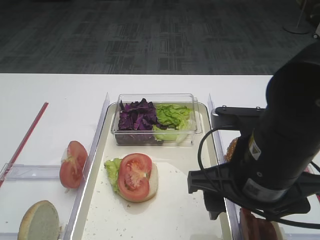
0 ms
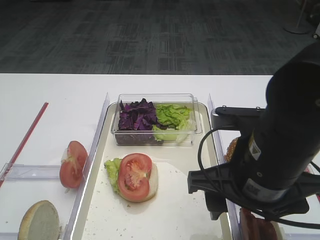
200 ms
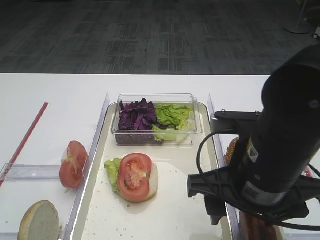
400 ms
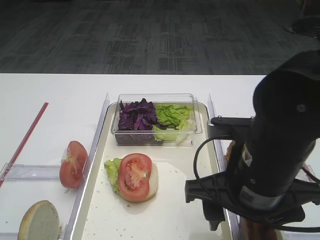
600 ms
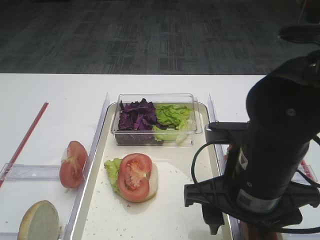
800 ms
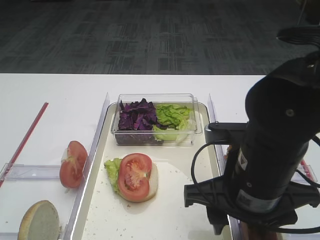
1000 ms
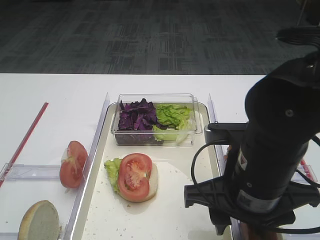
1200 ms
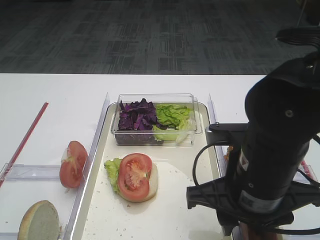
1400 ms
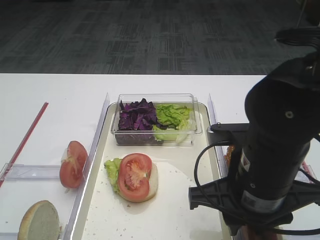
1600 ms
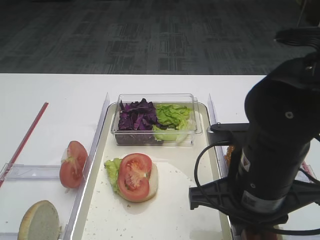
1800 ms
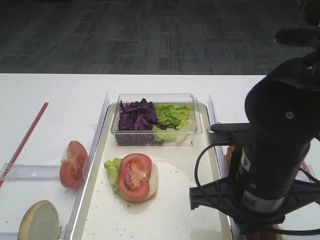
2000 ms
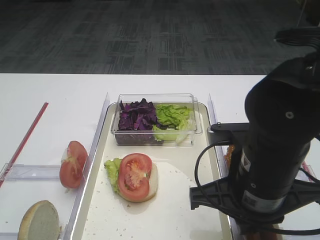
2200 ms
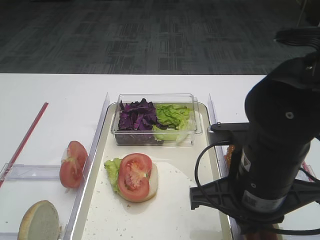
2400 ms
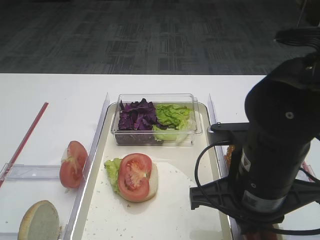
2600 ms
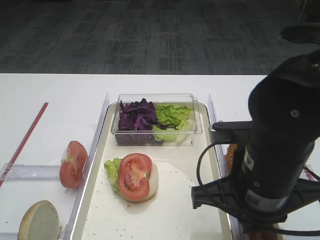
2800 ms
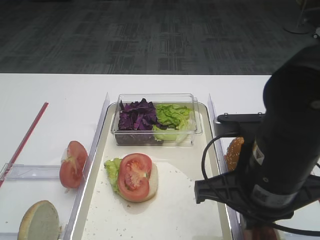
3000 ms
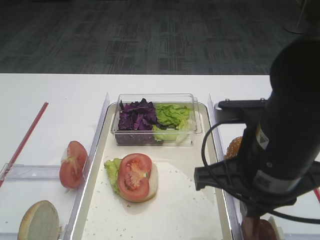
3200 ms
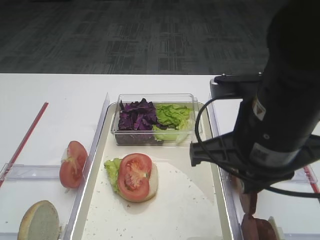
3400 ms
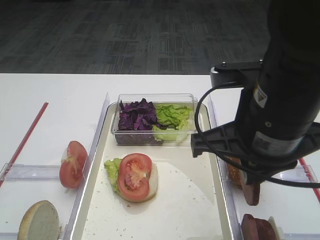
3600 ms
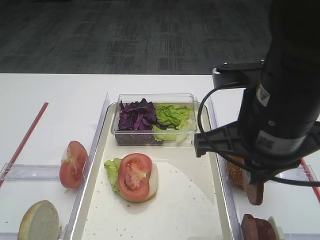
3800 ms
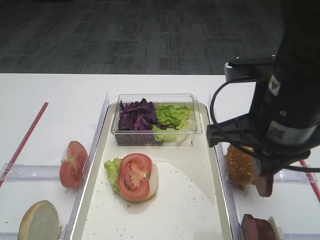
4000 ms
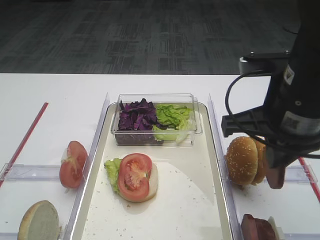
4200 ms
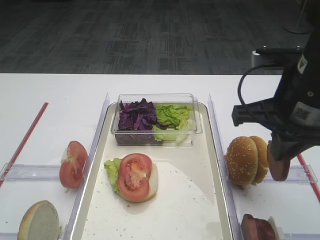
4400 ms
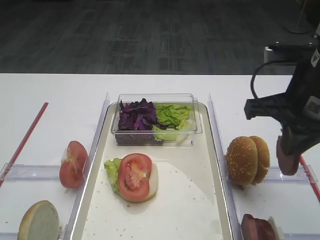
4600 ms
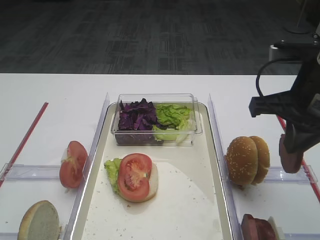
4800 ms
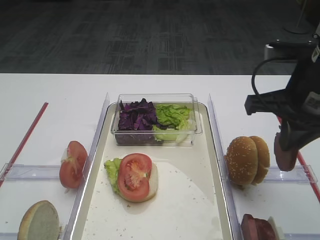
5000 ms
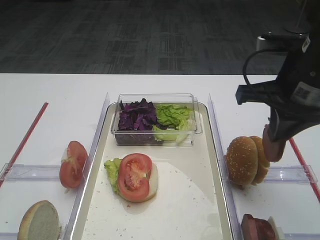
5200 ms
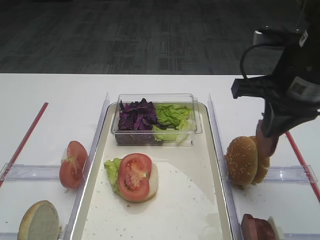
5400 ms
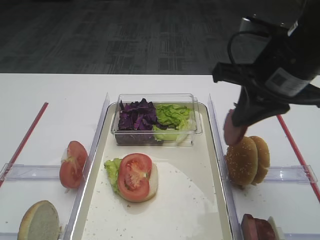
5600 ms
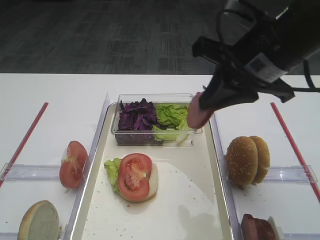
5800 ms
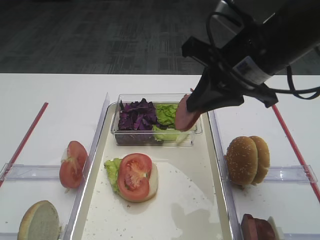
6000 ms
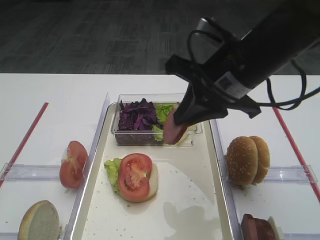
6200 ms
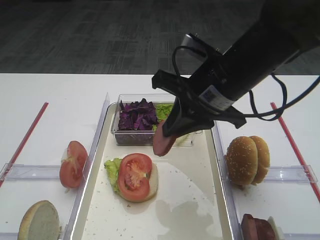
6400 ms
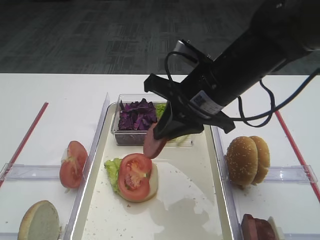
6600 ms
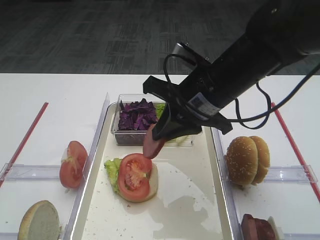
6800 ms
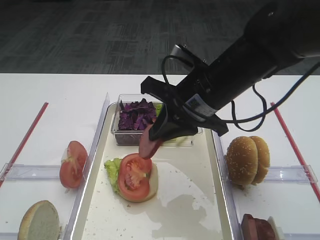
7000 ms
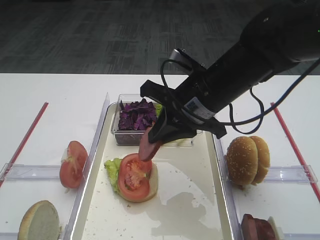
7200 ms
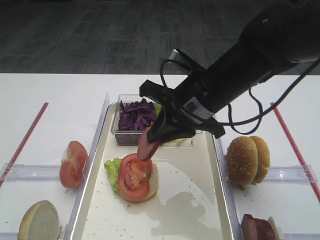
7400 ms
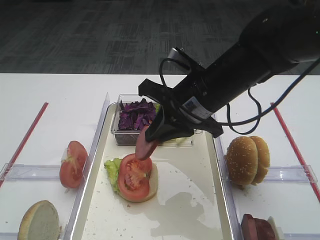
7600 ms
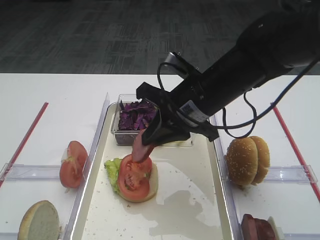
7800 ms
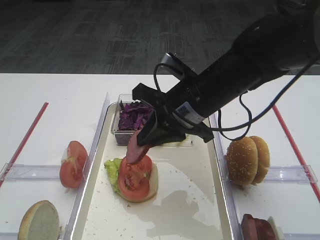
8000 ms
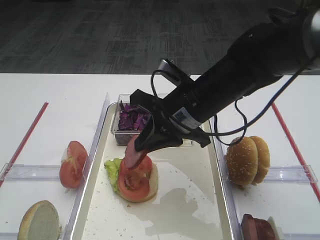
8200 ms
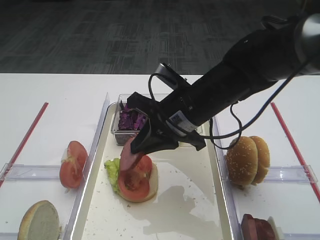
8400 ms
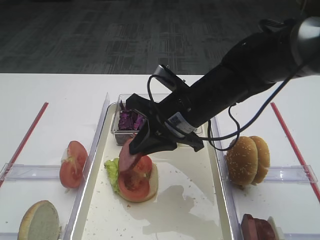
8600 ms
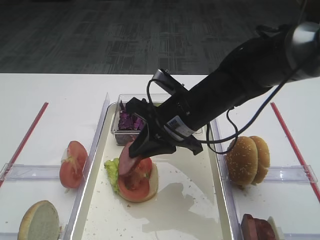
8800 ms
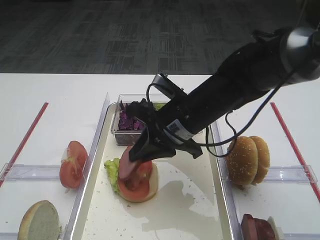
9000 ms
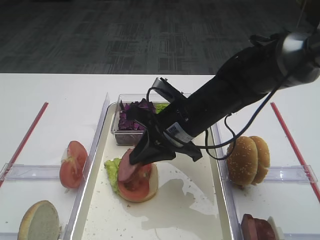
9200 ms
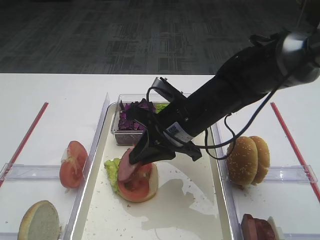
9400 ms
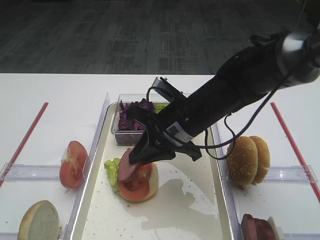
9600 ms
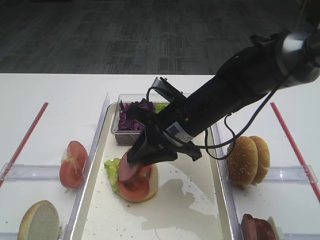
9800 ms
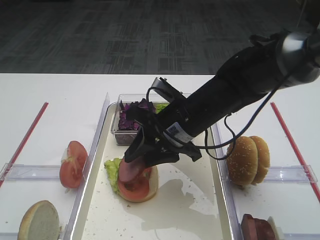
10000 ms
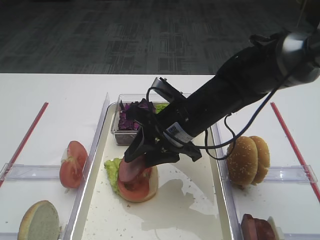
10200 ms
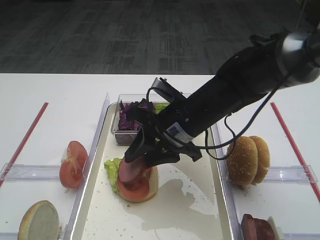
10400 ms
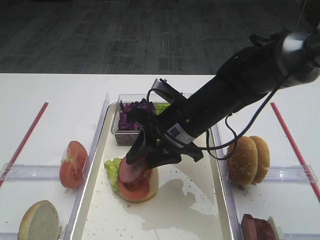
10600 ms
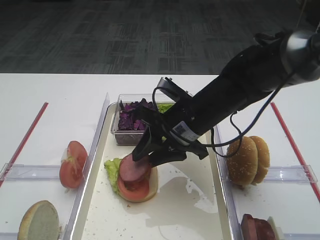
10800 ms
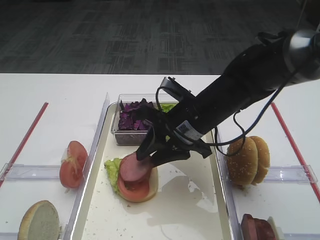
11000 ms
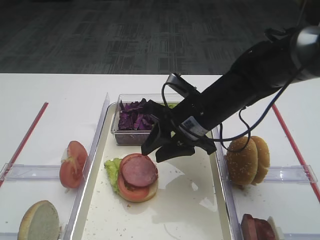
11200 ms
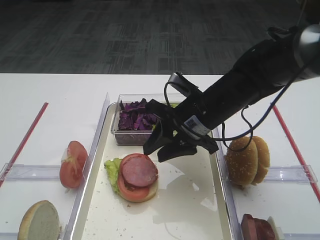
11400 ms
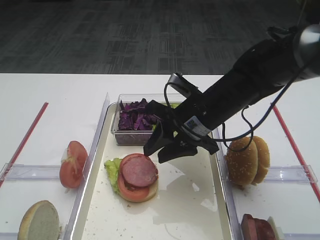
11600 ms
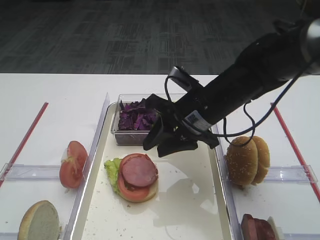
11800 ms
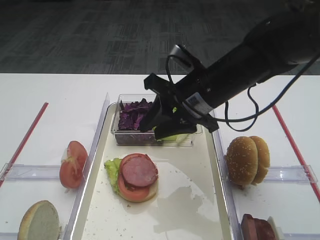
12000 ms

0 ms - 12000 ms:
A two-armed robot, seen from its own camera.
Step, 0 ms - 3200 ms: Pick up the cutlet with the right gripper.
Step, 3400 ms - 11400 ms: Place the cutlet on the tomato slice with the right gripper.
0 ms - 1600 ms: The right gripper closes.
1600 ms - 3000 ms: The right gripper closes.
3000 ms - 4400 ms: The right gripper shifts roughly 10 cm upward, forward and to the right.
4400 ms - 6000 ms: The right gripper is displaced forward by approximately 5 cm.
6000 ms - 7600 ms: The right gripper goes about 10 cm downward and to the left.
7600 ms - 9000 ms: The right gripper moves about 5 cm.
9000 ms - 10400 ms: The right gripper opens.
10400 ms - 12000 ms: The right gripper shifts by some 5 cm.

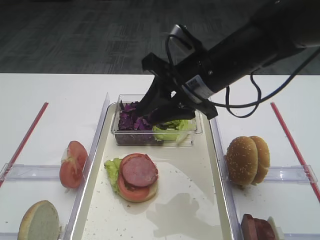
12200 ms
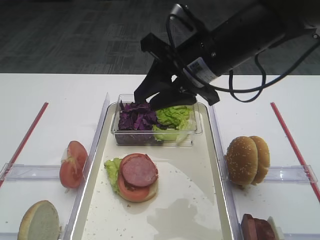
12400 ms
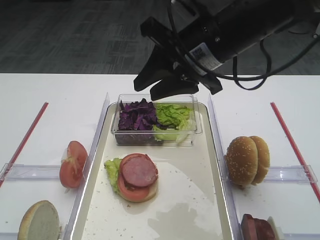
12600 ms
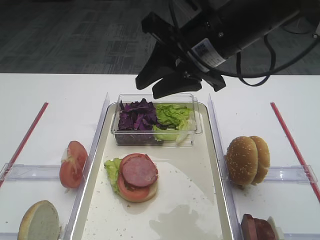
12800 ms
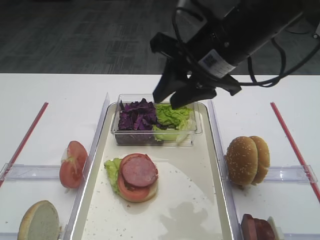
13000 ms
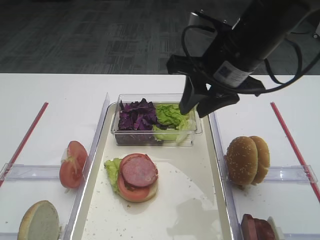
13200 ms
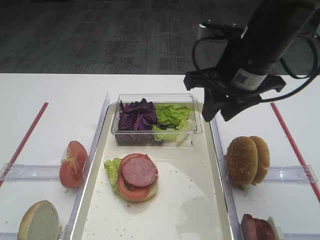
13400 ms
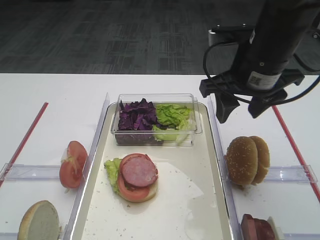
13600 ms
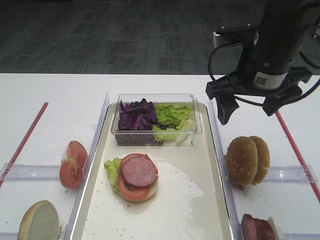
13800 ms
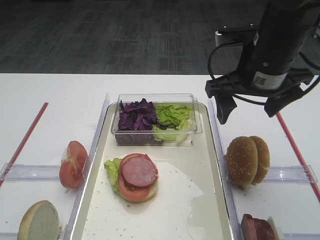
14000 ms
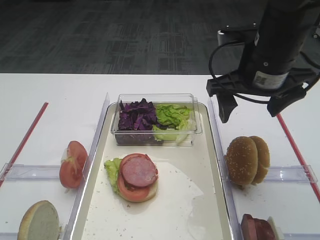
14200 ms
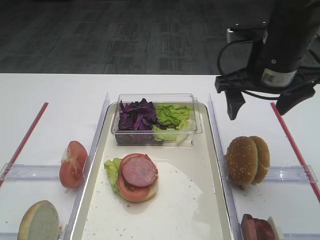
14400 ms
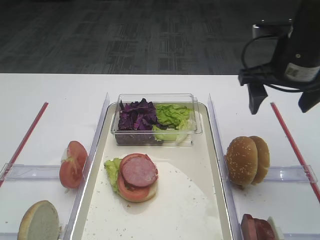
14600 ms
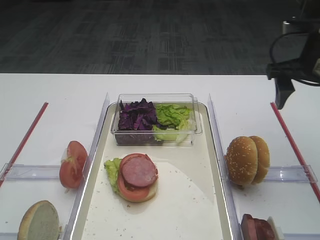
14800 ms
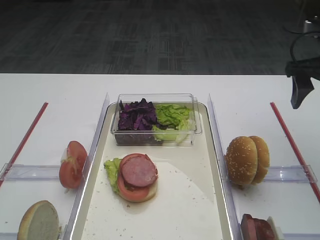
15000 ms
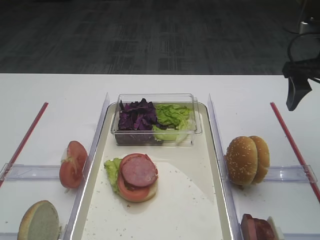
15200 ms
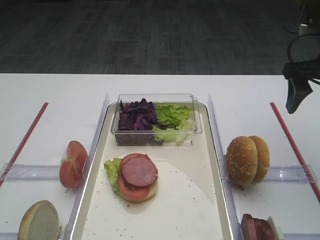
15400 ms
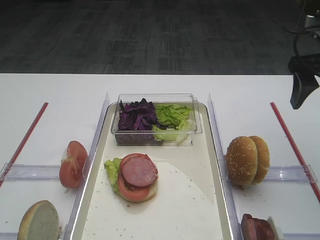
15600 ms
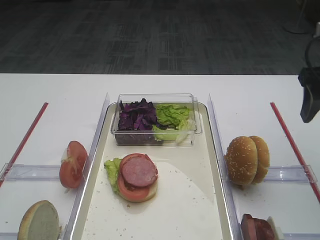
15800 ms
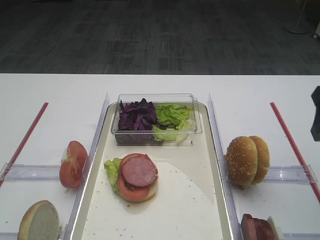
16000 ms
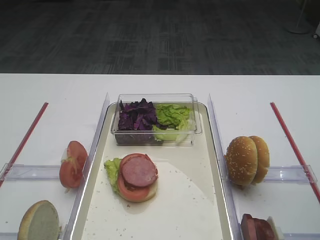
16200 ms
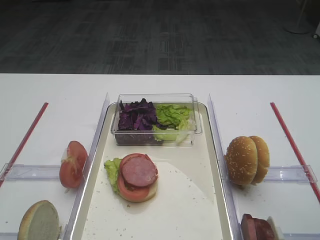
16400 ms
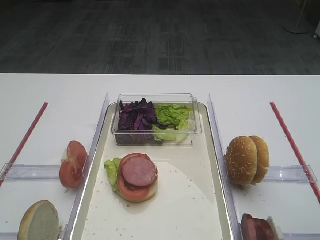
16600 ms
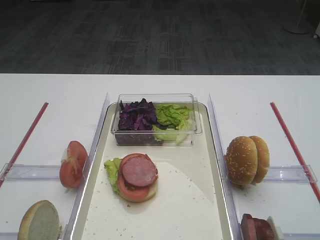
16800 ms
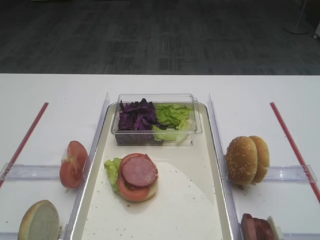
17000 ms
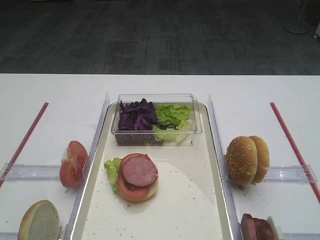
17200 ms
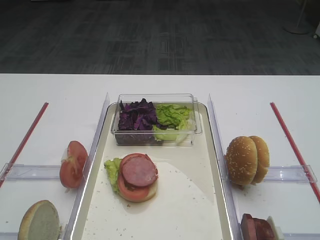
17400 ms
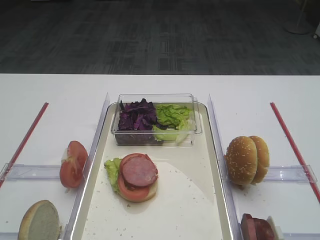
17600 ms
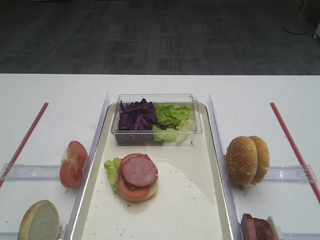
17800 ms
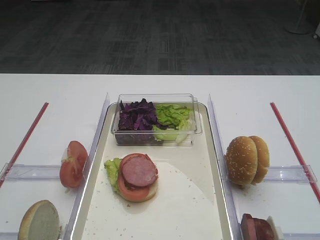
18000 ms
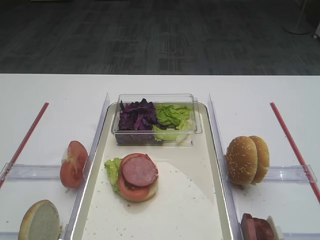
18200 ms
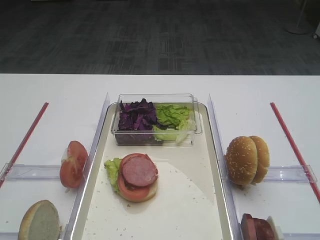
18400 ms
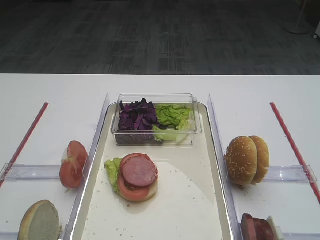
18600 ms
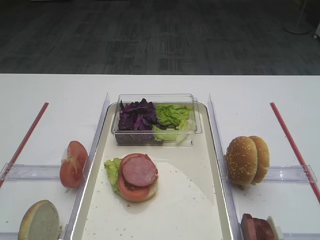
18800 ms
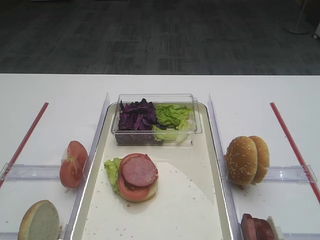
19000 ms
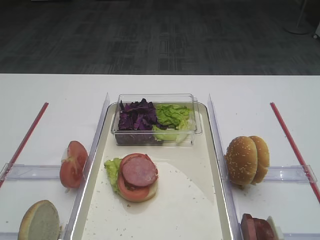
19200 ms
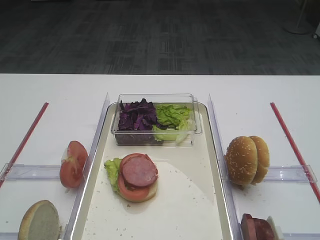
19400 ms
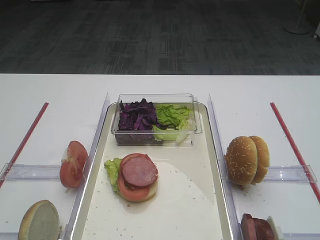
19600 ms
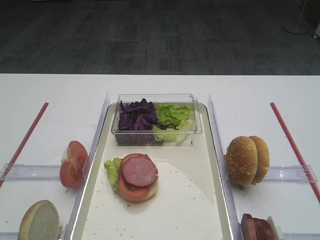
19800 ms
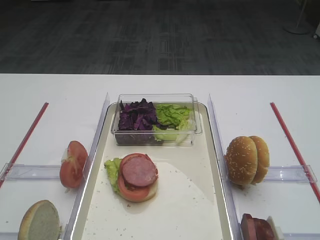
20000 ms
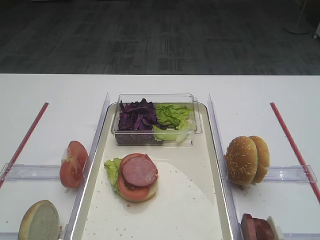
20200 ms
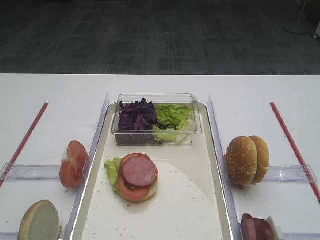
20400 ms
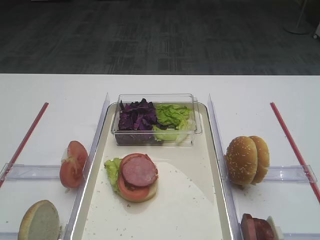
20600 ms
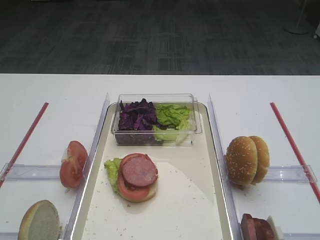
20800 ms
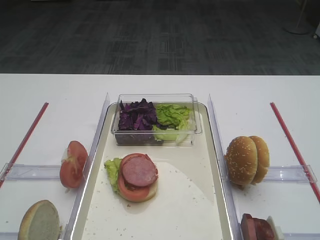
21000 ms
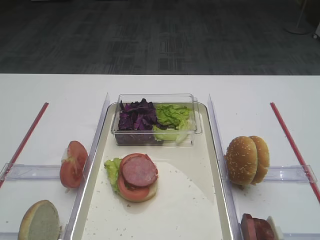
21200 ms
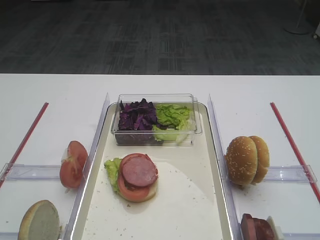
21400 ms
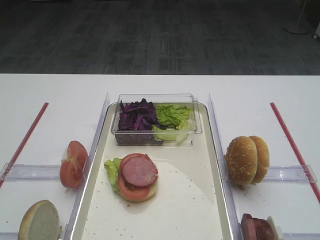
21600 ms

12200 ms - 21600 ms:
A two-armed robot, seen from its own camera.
12200 ms - 13800 ms: The right gripper moves to the right, approximately 5 cm, and opens its fingers.
13800 ms - 15400 ms: The right gripper heads to the right, covering roughly 15 cm.
15400 ms - 17000 ms: The right gripper travels backward by approximately 25 cm.
18400 ms - 21600 ms: Neither gripper changes place.

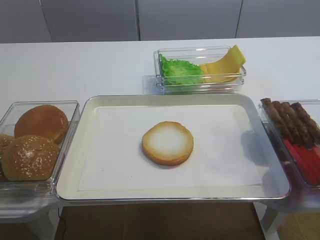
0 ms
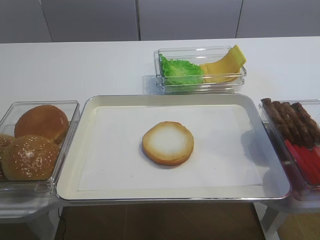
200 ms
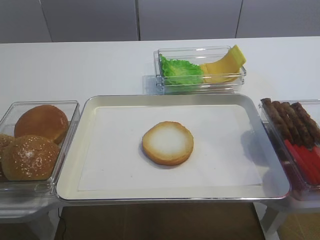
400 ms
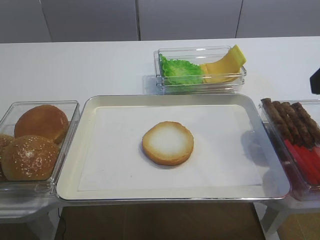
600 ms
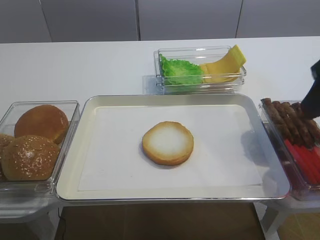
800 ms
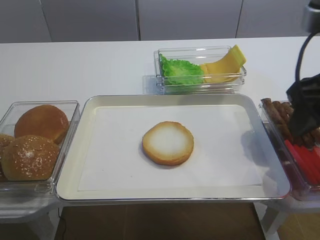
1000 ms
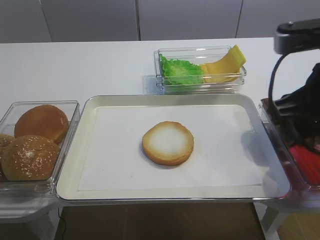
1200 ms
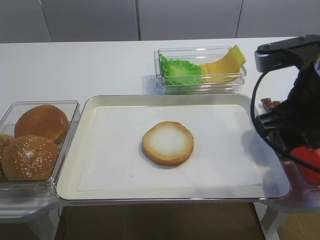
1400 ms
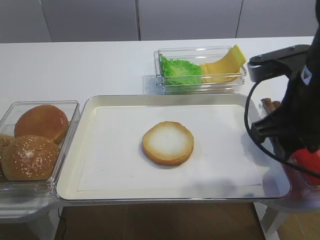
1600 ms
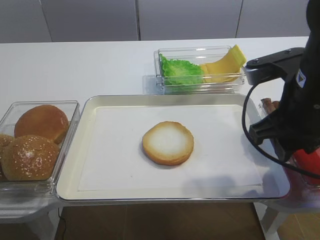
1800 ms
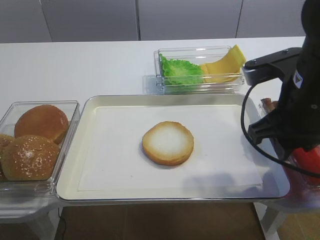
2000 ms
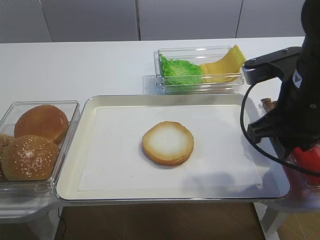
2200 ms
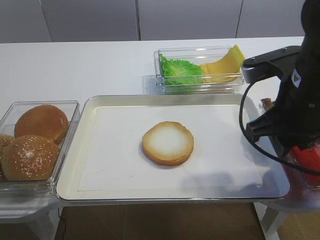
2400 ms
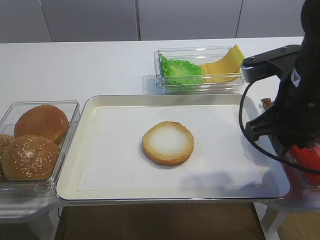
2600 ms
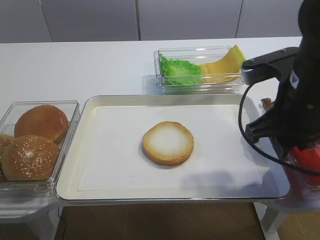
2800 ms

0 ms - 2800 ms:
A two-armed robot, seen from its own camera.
0 ms - 1400 ms: The right gripper travels forward, to the left and downward by about 15 cm.
1400 ms - 2800 ms: The grippers move only a little.
